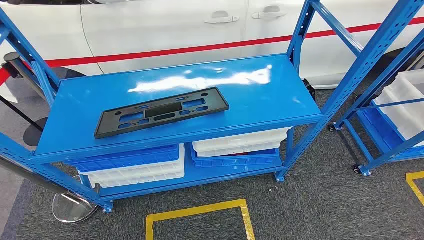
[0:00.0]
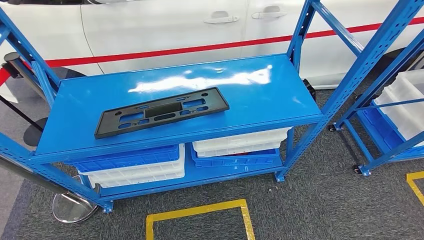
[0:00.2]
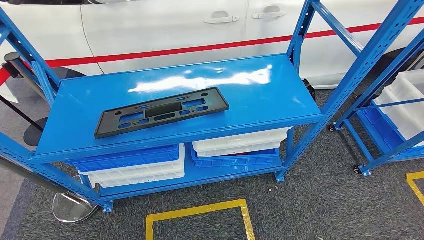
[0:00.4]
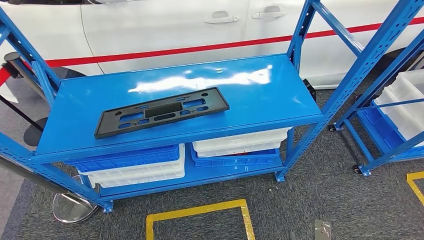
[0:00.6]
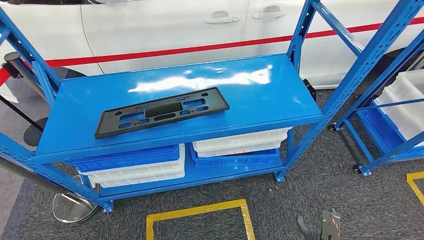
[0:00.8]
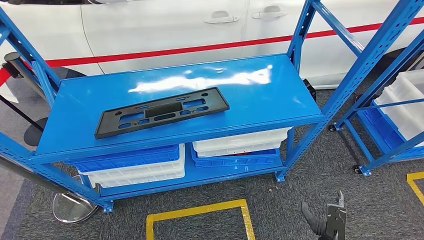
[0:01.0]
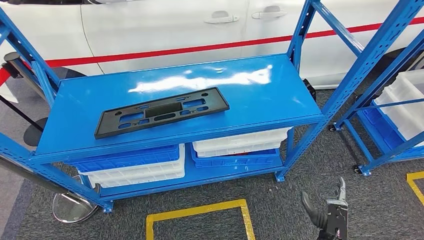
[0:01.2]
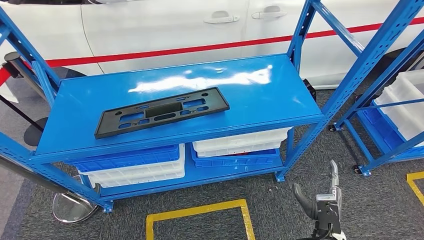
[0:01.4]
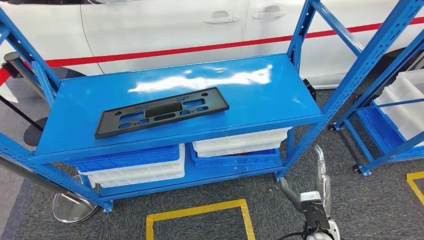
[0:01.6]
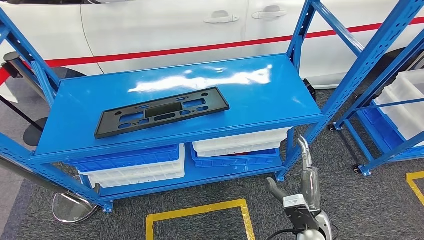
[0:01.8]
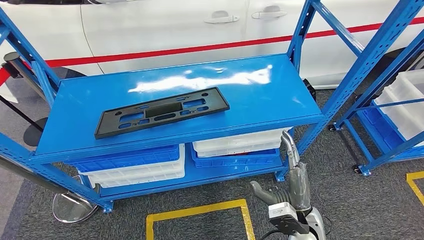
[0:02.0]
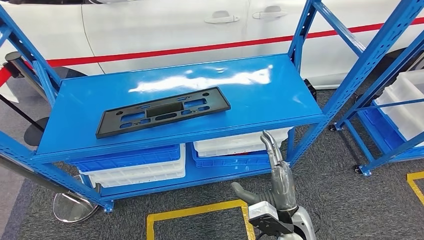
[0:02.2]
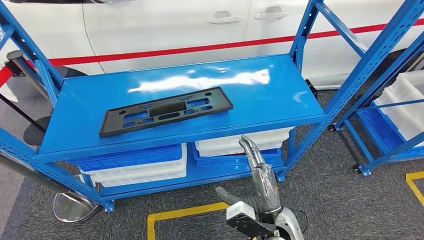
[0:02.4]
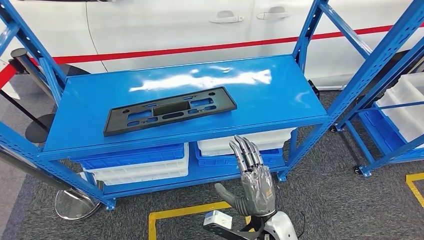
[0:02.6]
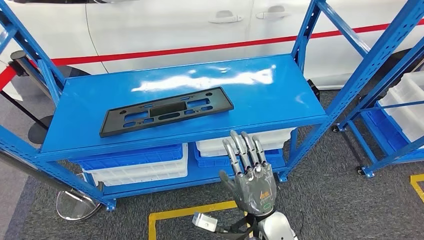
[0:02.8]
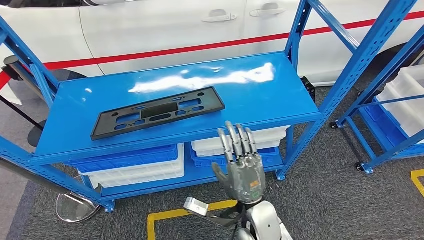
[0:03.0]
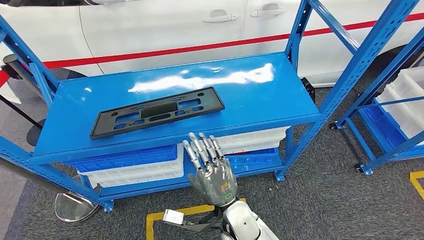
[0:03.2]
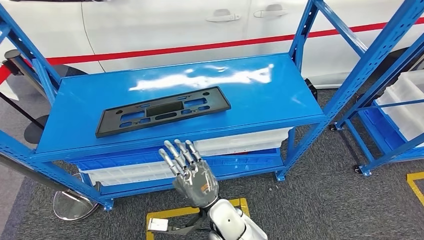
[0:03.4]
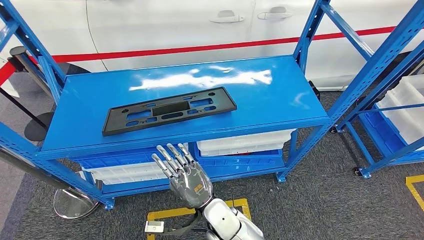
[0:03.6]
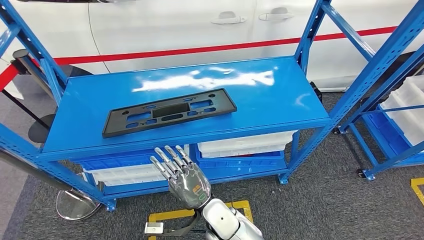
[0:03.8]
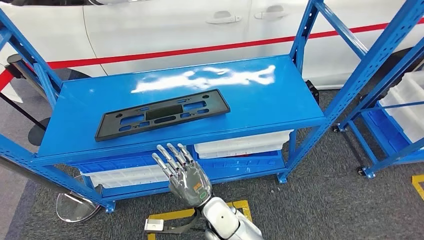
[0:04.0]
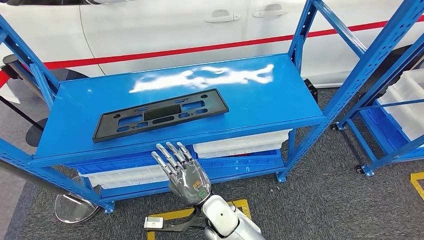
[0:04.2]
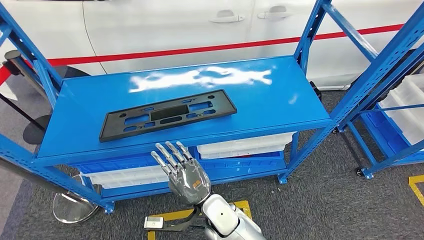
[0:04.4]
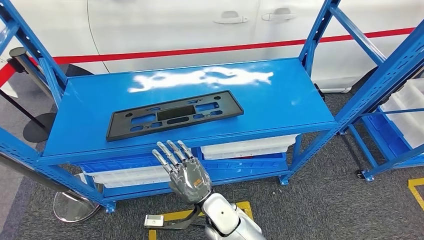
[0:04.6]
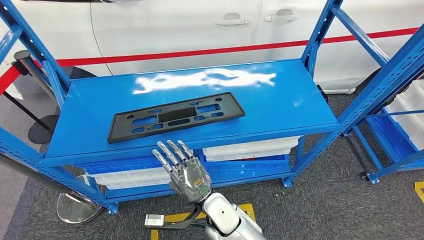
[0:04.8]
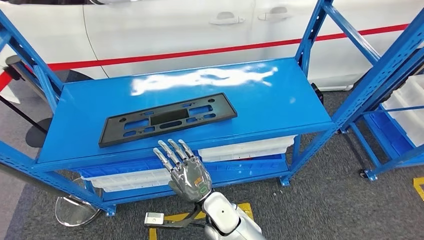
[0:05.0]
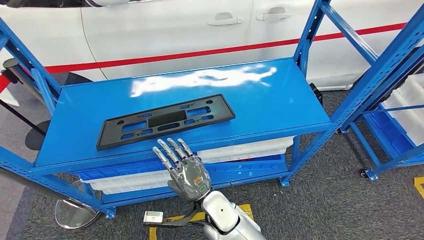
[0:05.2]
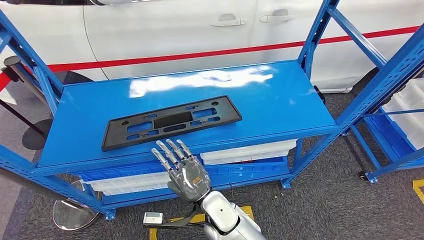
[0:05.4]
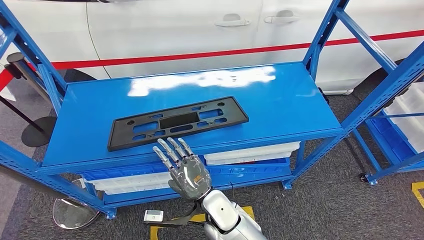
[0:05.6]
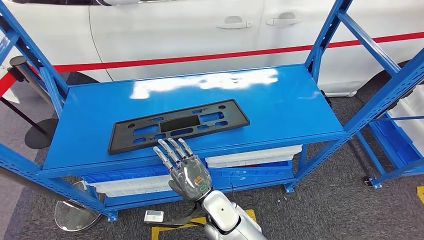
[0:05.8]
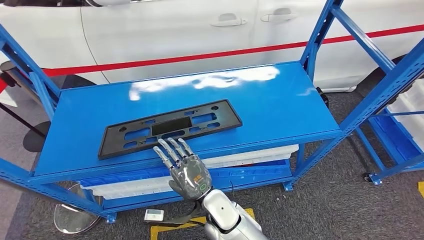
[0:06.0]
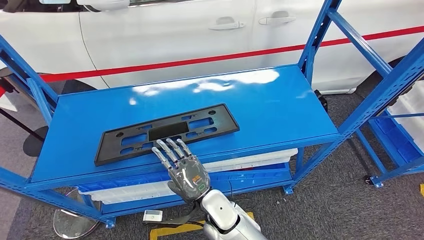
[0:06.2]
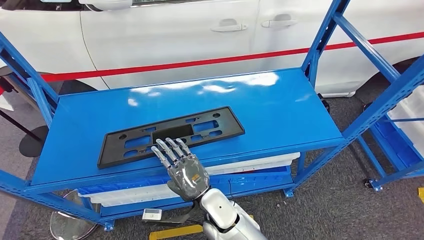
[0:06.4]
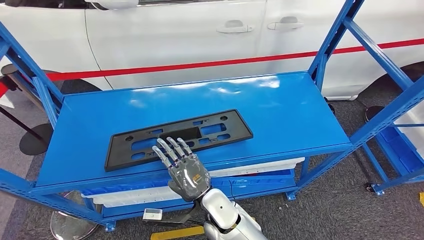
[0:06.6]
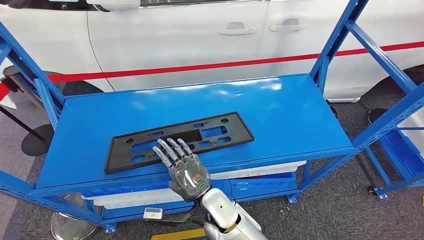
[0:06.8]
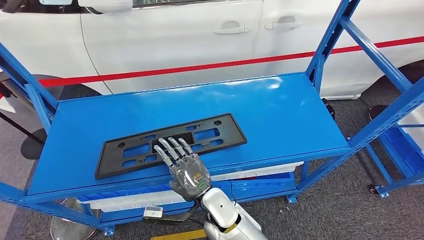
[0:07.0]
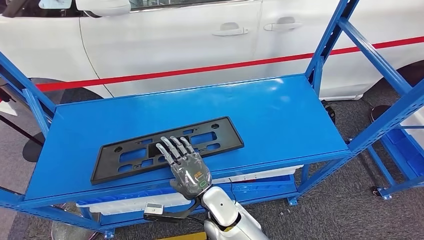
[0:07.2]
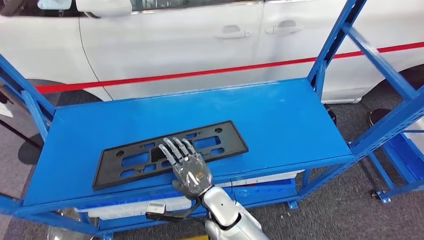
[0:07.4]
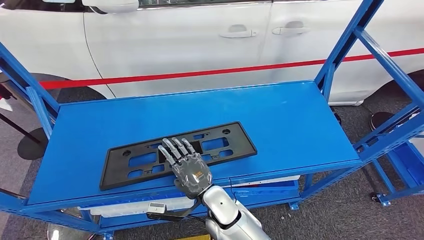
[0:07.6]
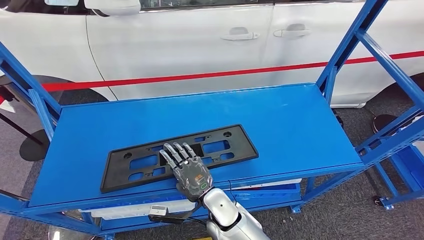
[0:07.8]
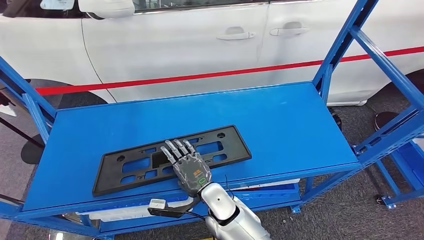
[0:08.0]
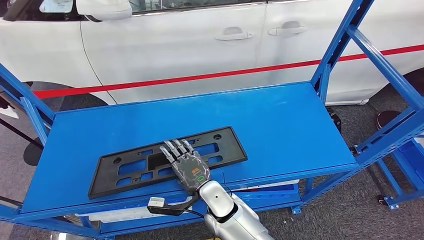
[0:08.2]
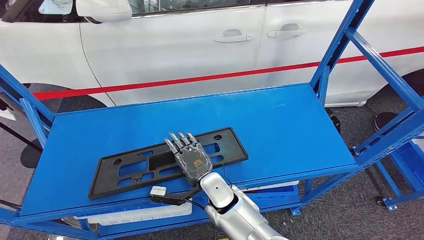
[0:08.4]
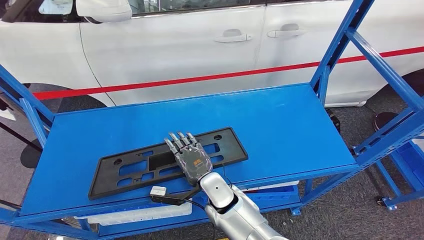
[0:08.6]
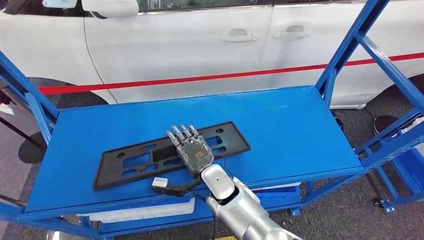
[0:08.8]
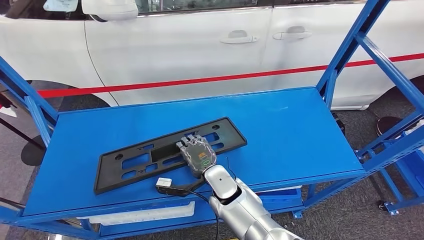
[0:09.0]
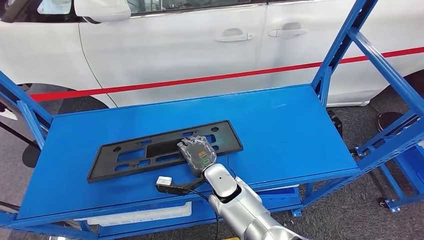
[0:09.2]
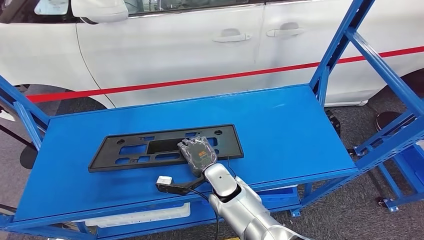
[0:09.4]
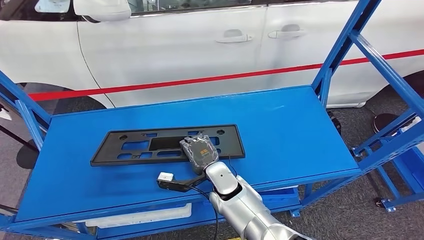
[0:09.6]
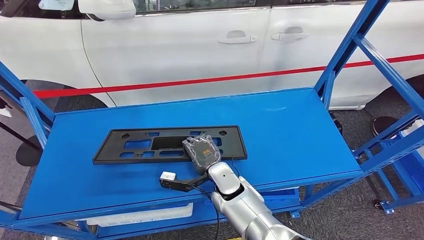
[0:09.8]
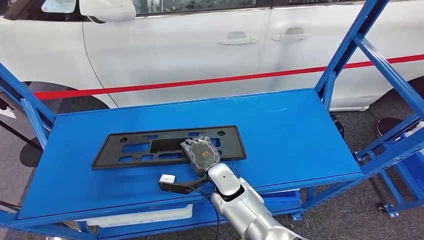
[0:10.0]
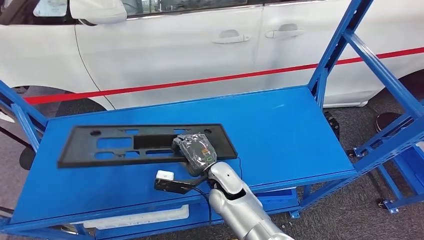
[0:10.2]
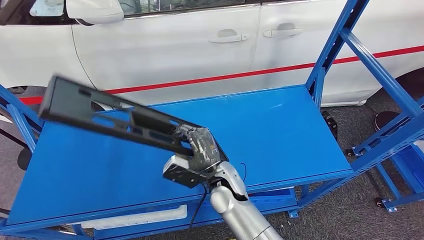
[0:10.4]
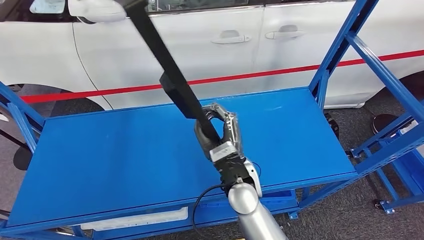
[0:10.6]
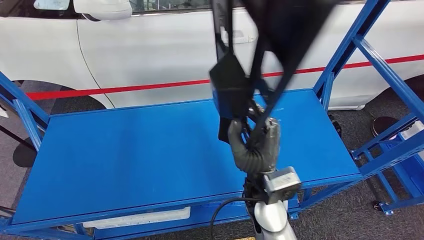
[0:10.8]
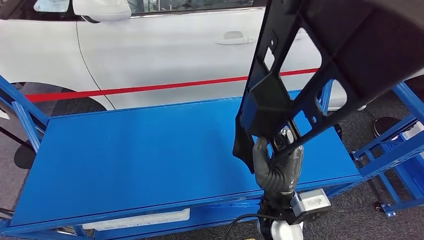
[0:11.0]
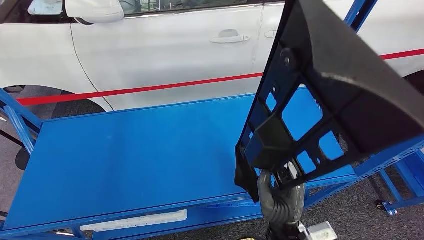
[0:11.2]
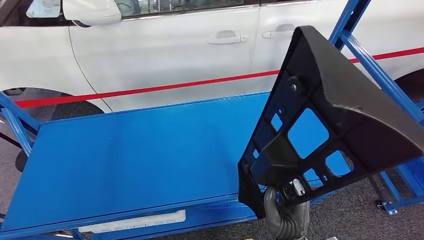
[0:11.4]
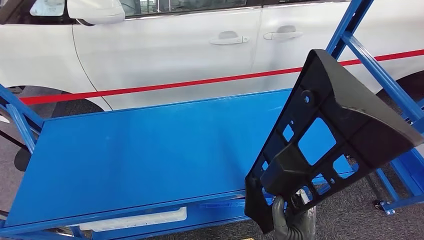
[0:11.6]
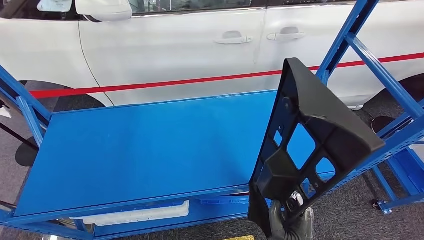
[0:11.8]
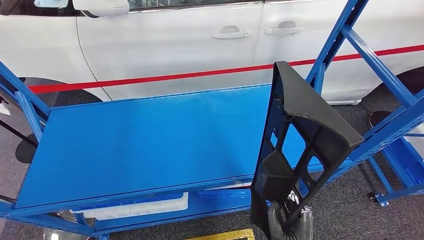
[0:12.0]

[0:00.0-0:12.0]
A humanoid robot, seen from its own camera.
Step, 0:00.0 to 0:11.4: Pick up the large material from the shelf.

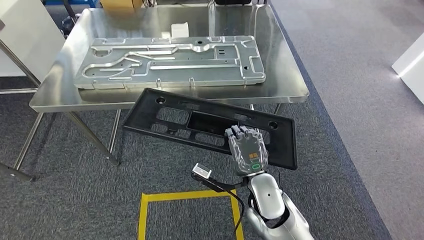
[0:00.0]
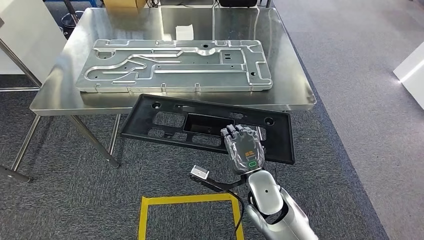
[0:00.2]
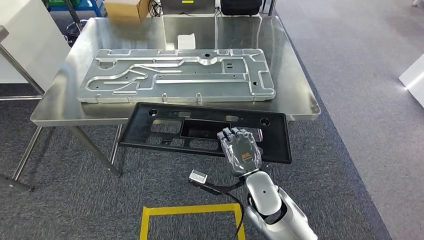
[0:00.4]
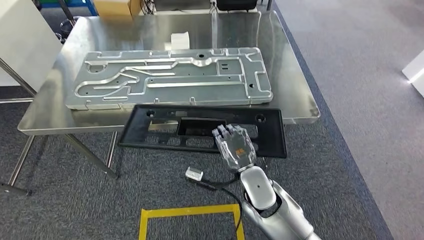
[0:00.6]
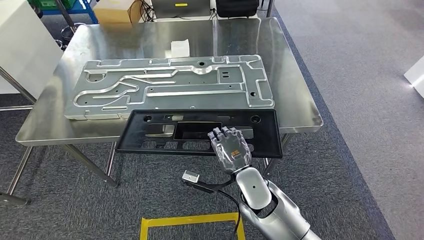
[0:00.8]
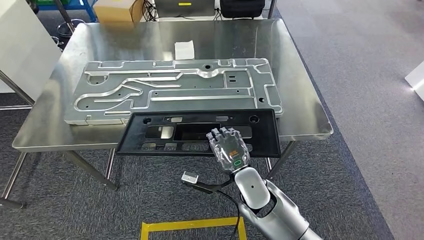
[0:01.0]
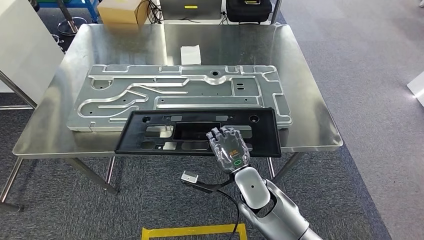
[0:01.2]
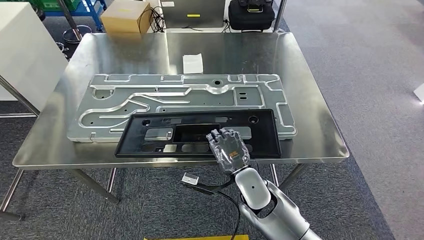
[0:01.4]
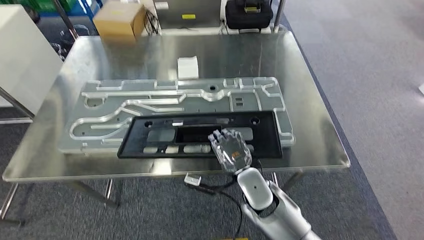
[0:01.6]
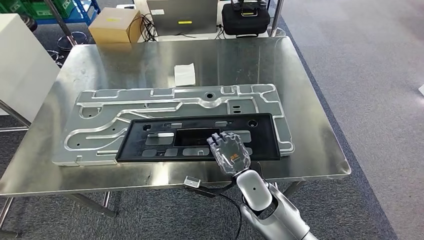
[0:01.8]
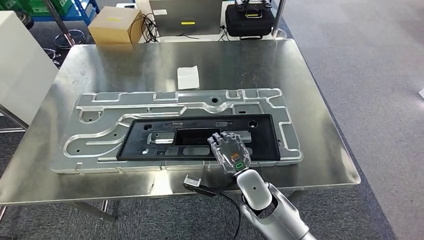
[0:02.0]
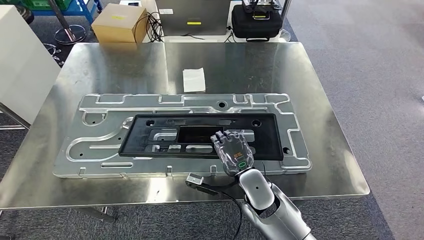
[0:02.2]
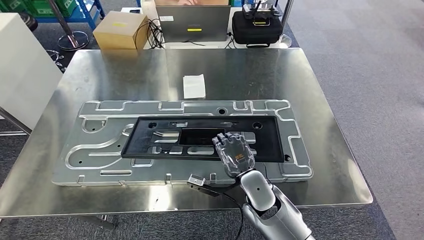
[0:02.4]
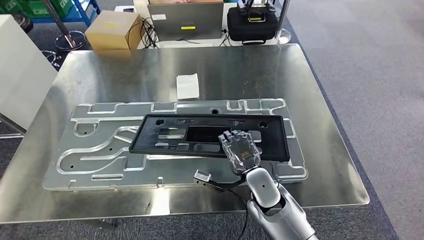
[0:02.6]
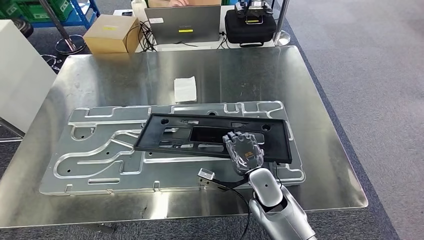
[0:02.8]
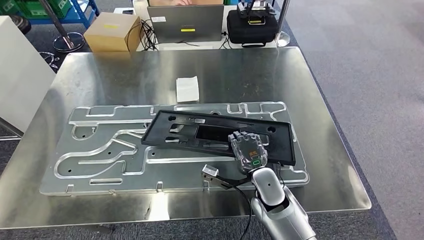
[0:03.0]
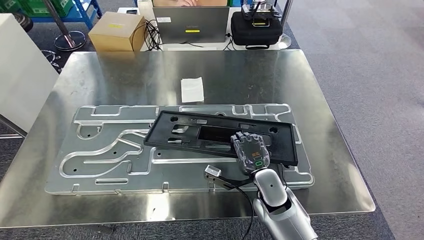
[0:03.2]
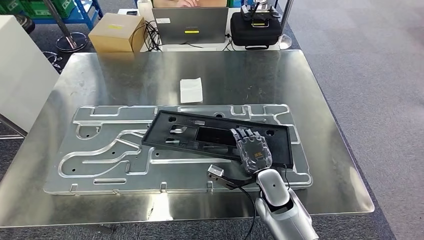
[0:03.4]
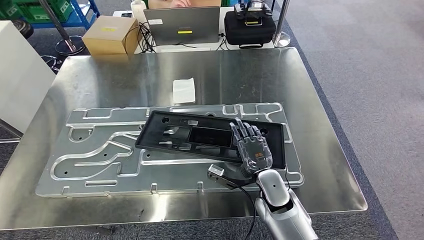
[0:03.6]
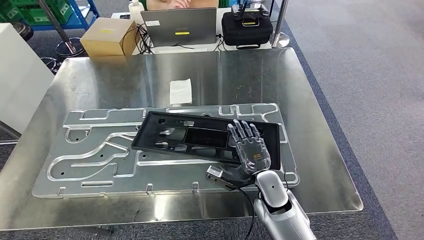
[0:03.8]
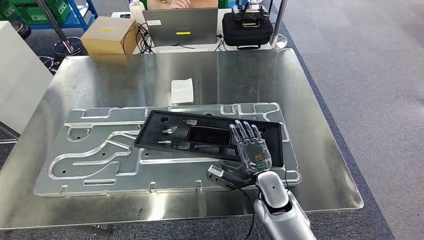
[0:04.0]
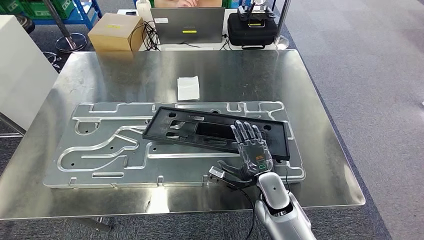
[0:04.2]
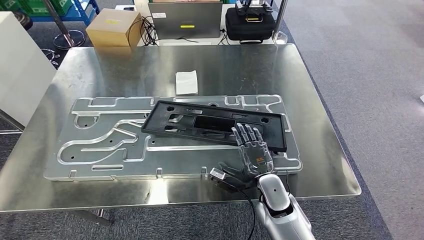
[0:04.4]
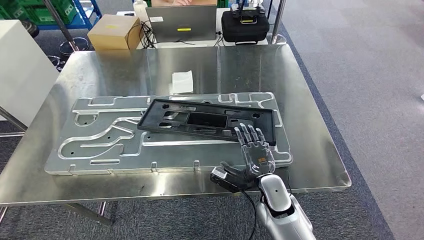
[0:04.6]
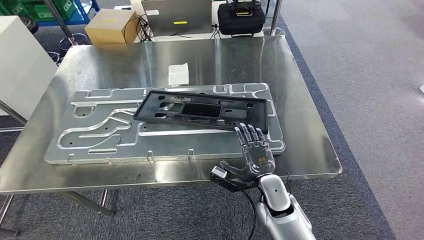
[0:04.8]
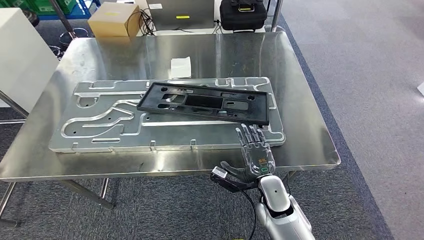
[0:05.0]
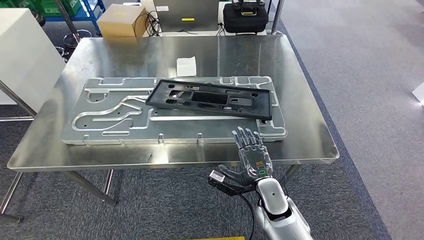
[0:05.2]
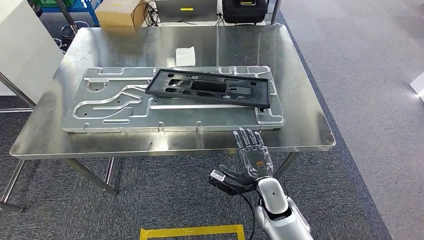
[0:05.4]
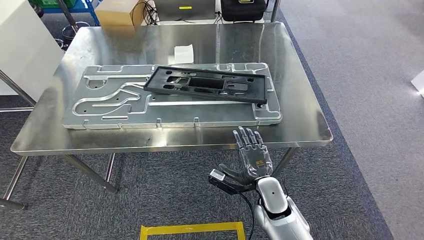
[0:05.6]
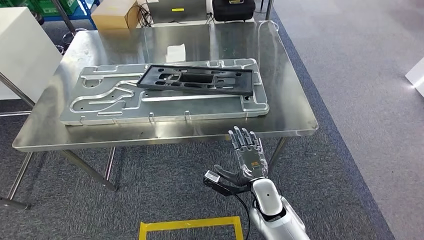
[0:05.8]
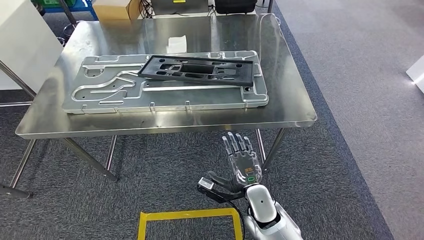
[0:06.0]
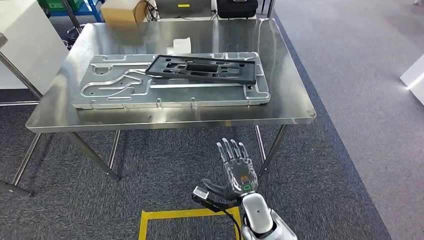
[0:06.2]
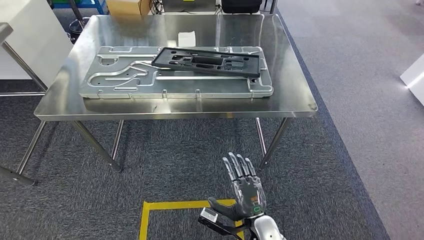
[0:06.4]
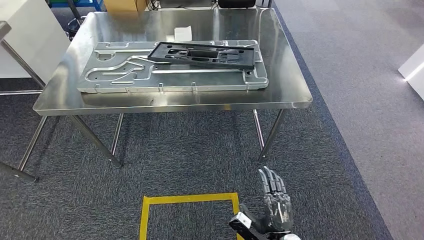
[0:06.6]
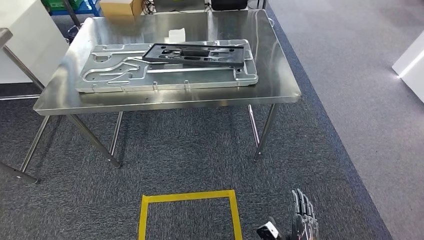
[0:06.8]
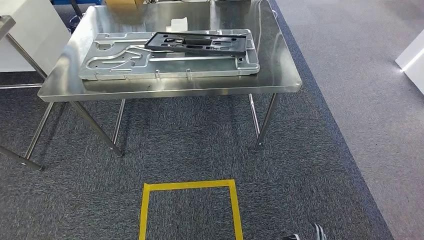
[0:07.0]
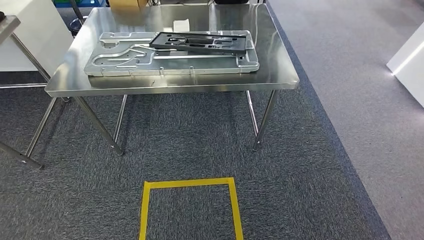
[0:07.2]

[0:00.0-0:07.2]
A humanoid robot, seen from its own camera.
Step, 0:00.4 to 0:07.2: Insert the large material into the corresponding hole on the workbench.
